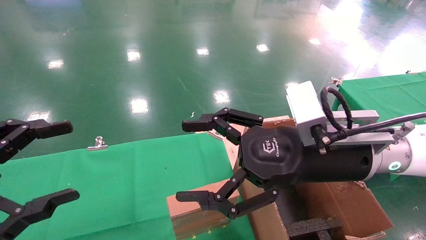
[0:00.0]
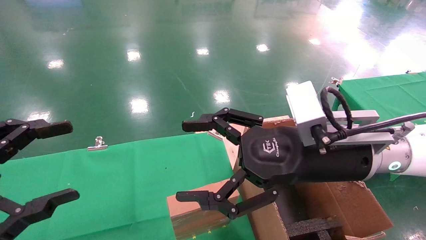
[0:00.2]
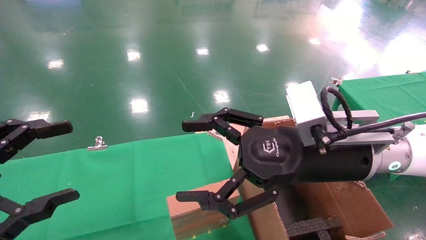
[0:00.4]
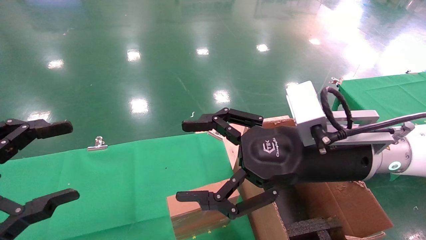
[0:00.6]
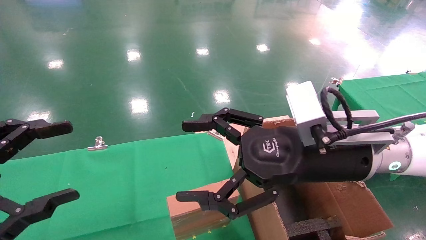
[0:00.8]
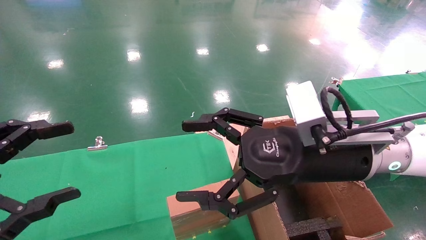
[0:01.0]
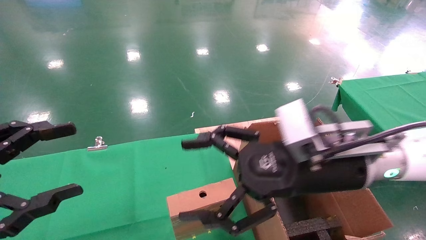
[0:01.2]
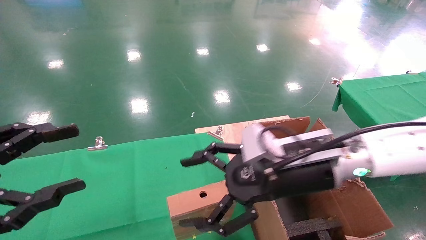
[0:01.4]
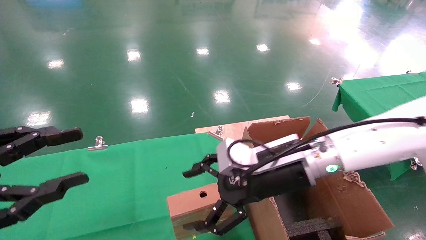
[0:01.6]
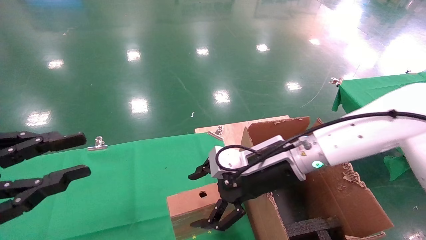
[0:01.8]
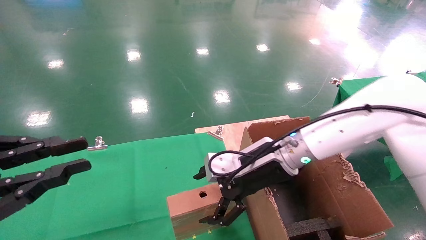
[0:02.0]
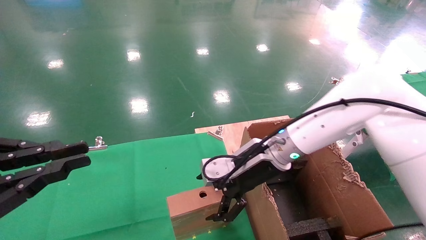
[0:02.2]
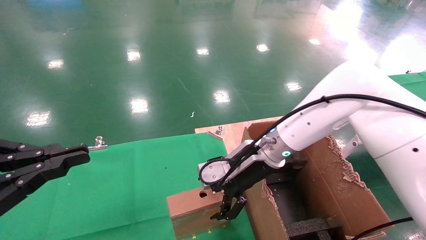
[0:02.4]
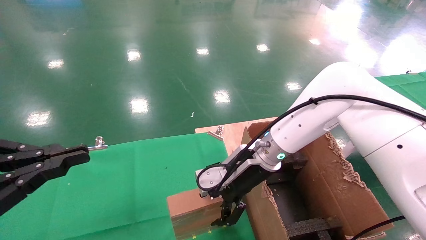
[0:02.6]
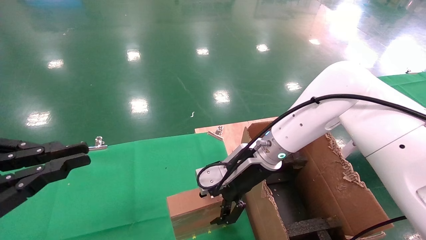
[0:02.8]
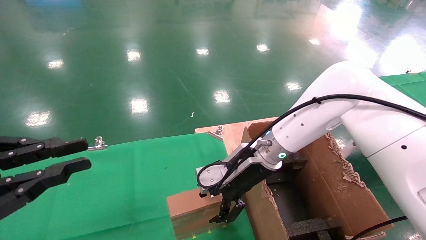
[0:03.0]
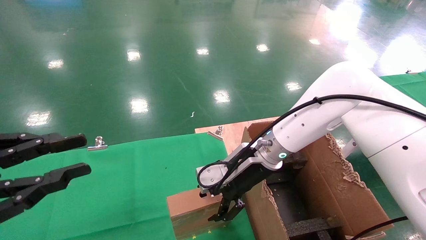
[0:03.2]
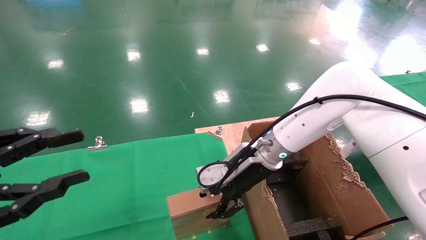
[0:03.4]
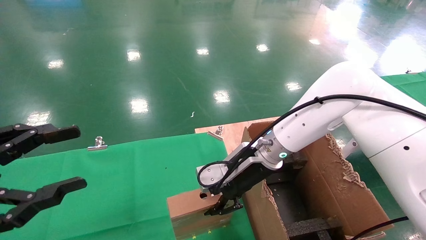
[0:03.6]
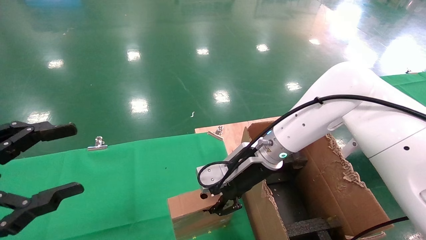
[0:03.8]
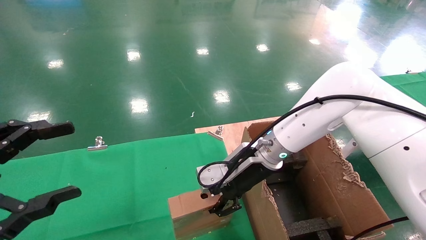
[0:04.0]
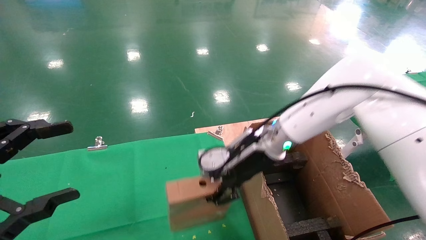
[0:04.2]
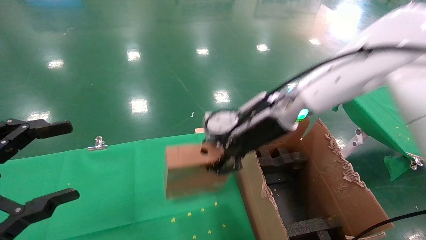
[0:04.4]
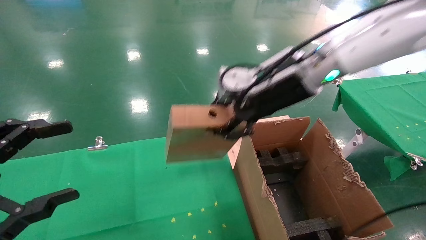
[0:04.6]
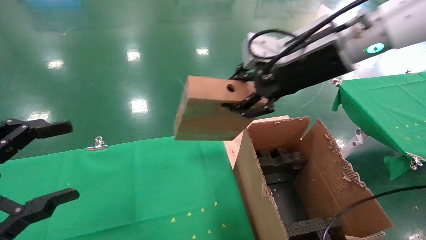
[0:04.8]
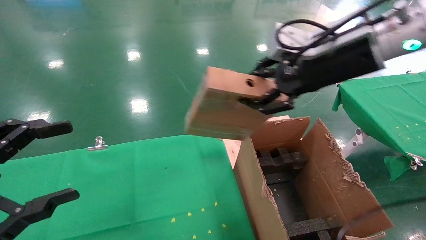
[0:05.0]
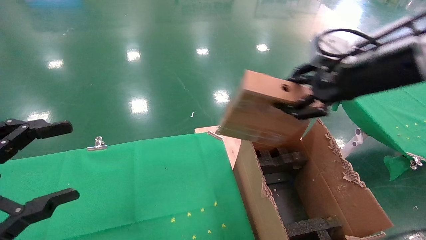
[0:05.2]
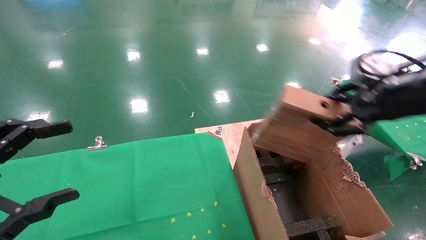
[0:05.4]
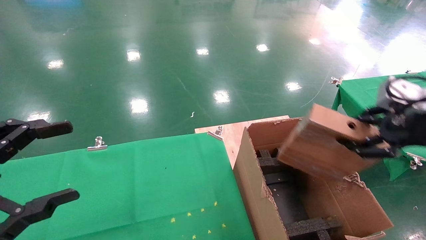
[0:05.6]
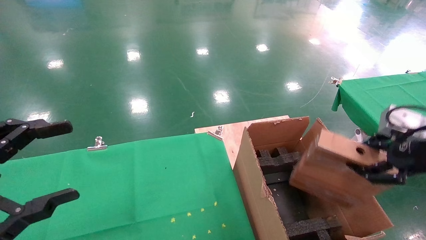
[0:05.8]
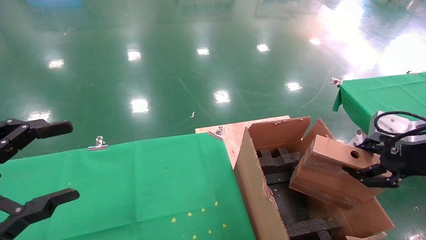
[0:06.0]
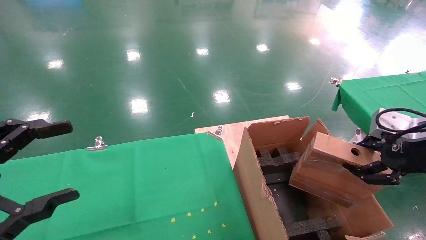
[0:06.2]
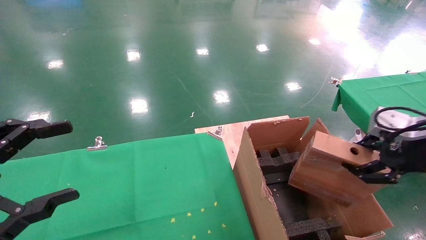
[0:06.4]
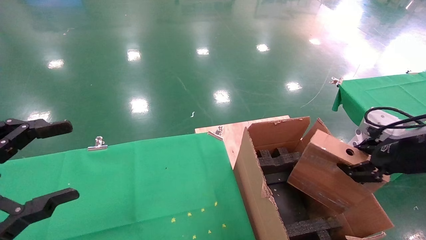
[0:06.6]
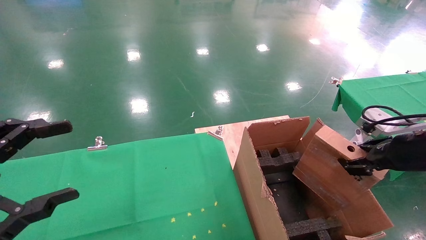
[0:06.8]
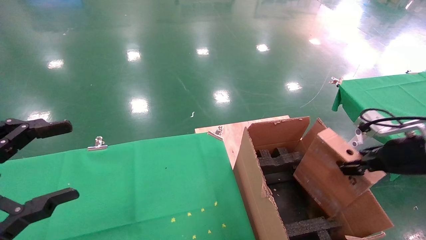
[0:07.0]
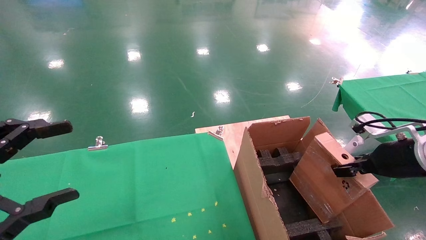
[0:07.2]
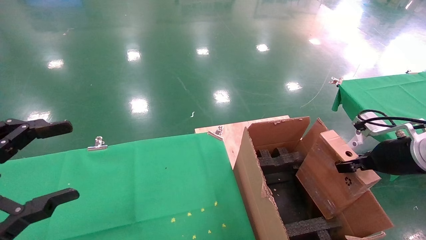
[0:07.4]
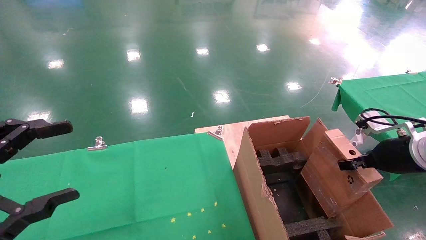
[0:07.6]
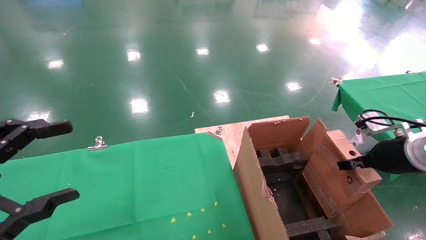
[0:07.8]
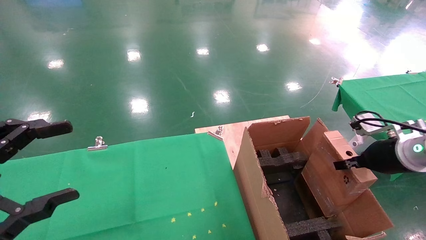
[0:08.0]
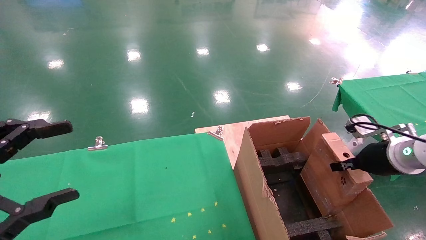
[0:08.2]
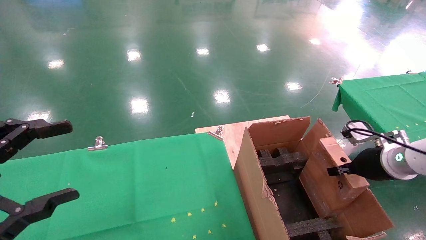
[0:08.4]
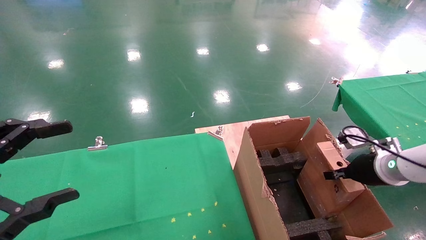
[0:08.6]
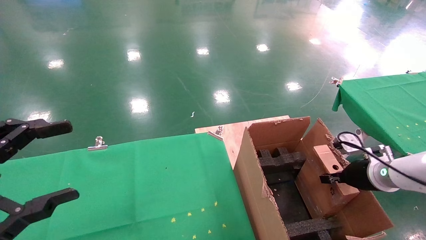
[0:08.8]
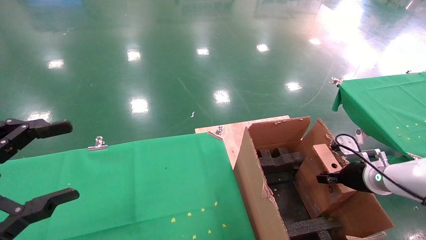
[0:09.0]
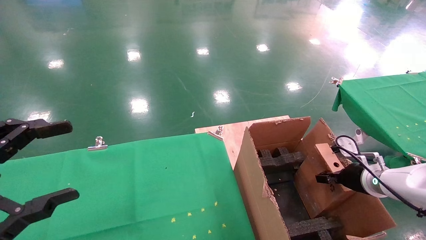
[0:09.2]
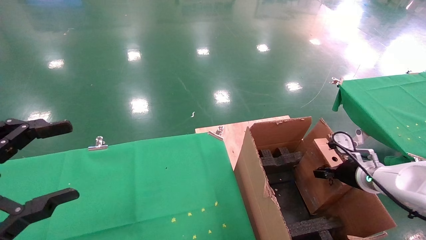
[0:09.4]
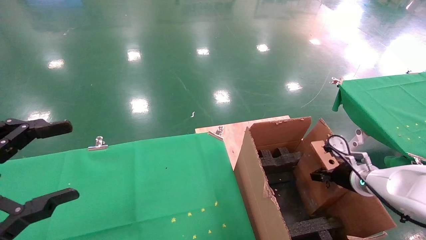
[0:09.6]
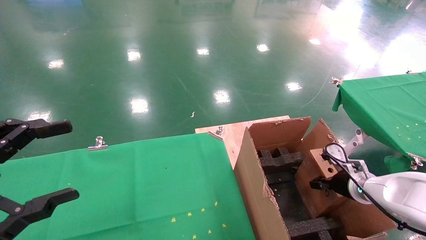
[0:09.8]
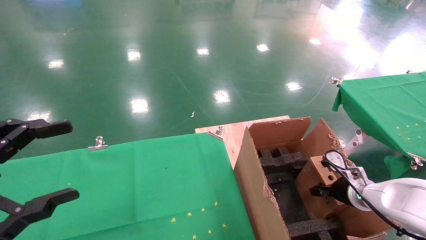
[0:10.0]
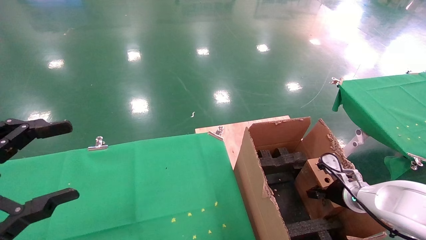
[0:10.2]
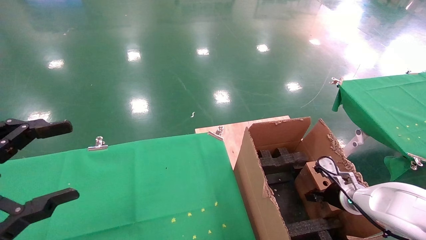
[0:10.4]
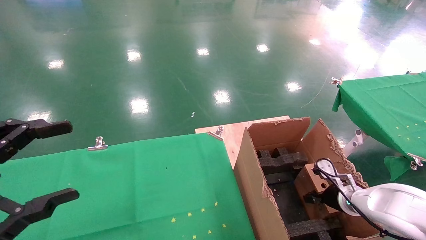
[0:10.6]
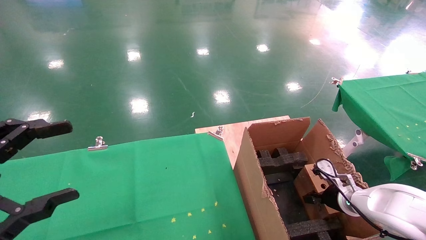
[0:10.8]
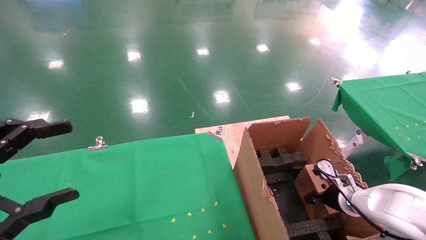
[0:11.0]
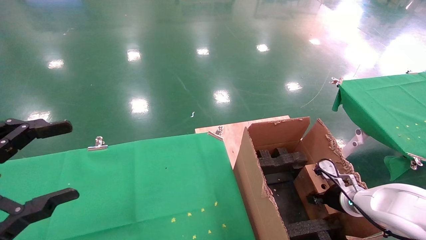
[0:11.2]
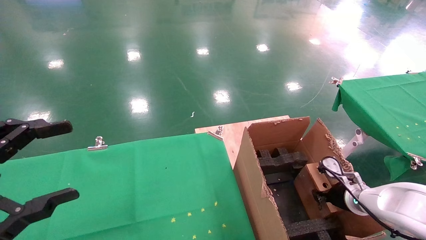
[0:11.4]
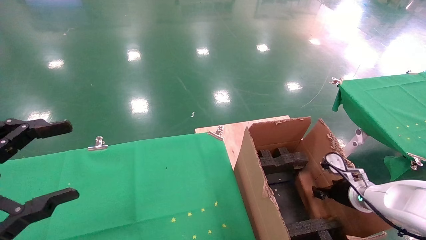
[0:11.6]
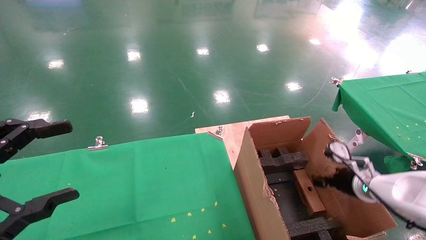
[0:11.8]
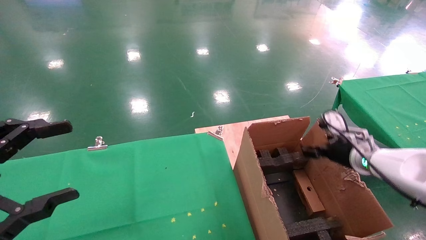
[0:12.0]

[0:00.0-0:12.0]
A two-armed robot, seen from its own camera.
Task of the whole recording: using a robotic arm to pick up a cardboard box and palace it the carton.
Step, 0:01.2 to 0:03.8: Pick up the mouse and the power cord paper box.
Step, 0:04.0 to 0:11.8: Place the mouse and the power cord paper box into the container.
0:00.0 to 0:01.6: The right gripper goes about 10 cm forward and downward. Meanwhile the left gripper closes its fingers.
0:01.6 to 0:03.0: The left gripper closes its fingers. The right gripper travels forward by roughly 5 cm.
0:03.0 to 0:04.4: The left gripper opens its fingers; the right gripper heads upward, covering about 10 cm, and closes up.
0:04.4 to 0:06.0: The right gripper shifts roughly 30 cm to the right and backward.
0:06.0 to 0:07.6: The right gripper moves forward and downward, approximately 10 cm.
0:07.6 to 0:09.0: The right gripper goes about 10 cm downward and forward.
0:09.0 to 0:10.4: The right gripper heads downward, covering some 10 cm.
0:10.4 to 0:12.0: The right gripper goes some 10 cm upward, and opens its fingers.

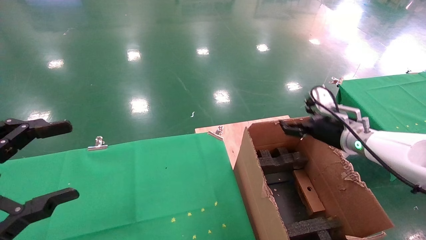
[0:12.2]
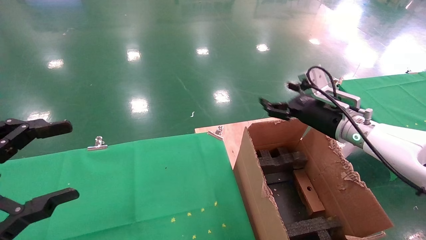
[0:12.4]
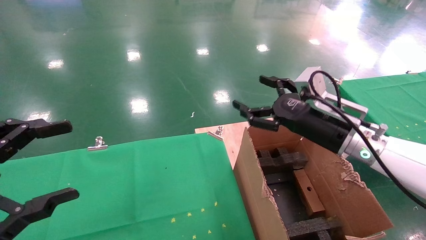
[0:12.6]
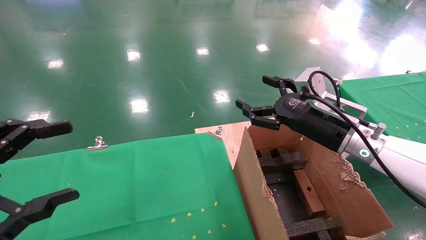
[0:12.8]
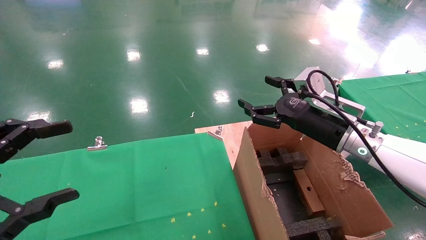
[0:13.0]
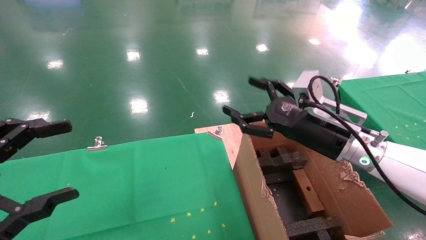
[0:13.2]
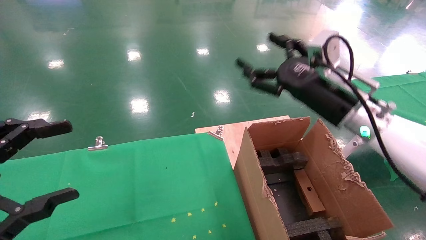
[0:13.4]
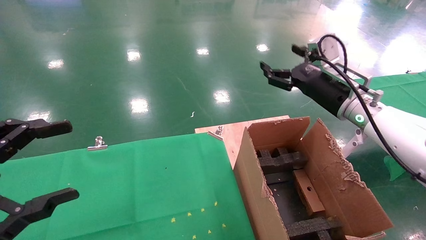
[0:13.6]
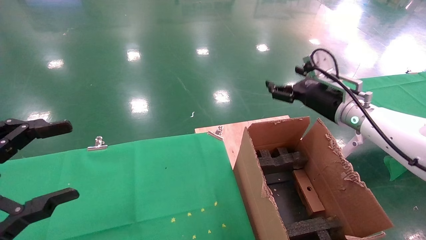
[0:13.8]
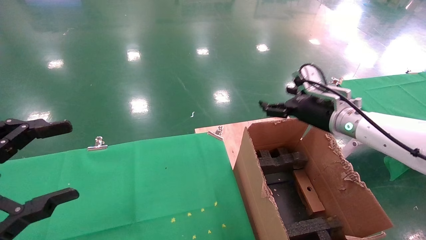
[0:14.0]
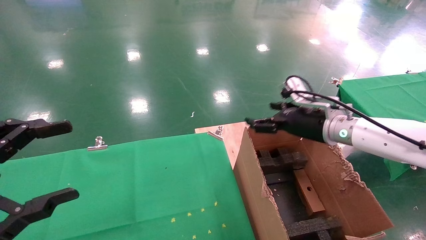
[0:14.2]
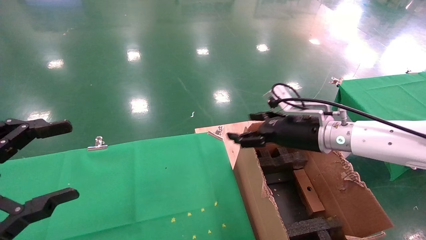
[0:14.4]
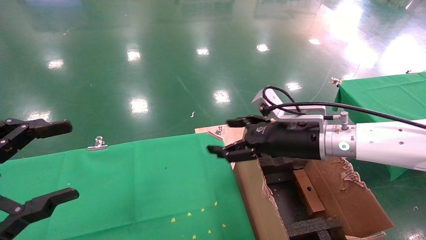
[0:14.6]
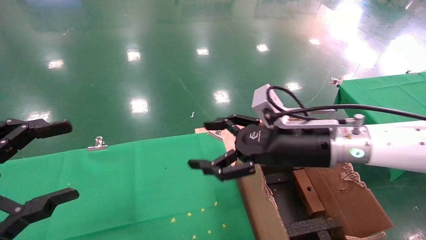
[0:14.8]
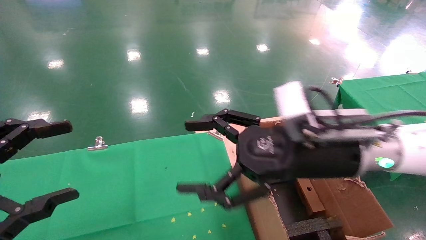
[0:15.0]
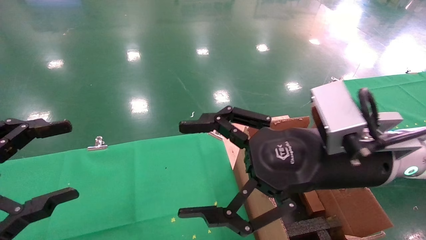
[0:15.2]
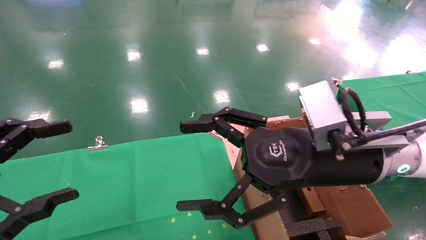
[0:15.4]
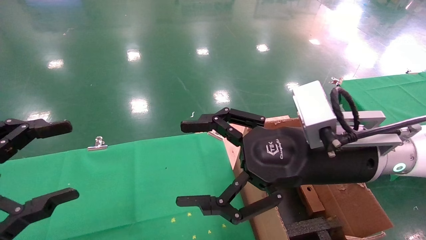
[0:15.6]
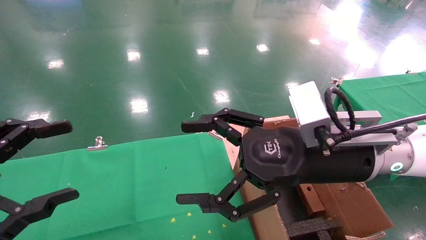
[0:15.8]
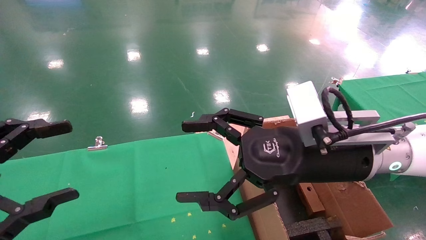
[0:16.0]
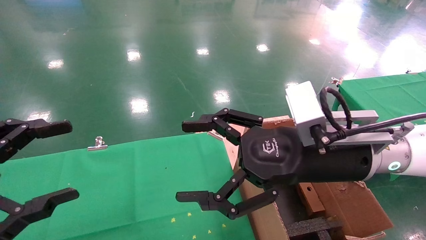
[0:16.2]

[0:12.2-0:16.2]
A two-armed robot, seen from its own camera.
Task of the whole recording: using a robotic arm to pick up a cardboard box and palace it the carton.
0:12.2 to 0:13.6: The right gripper is displaced upward by about 5 cm.
0:13.6 to 0:14.8: The right gripper moves to the left and backward, some 15 cm.
0:14.8 to 0:16.2: The right gripper moves backward, some 5 cm.
